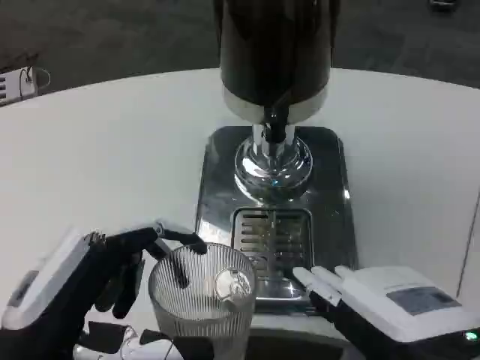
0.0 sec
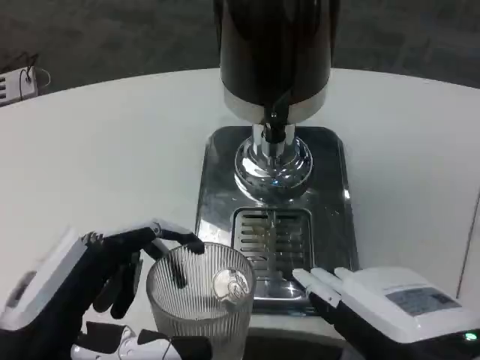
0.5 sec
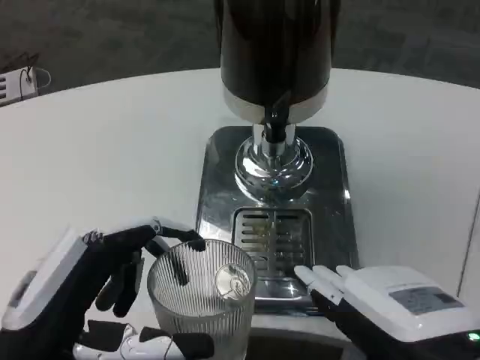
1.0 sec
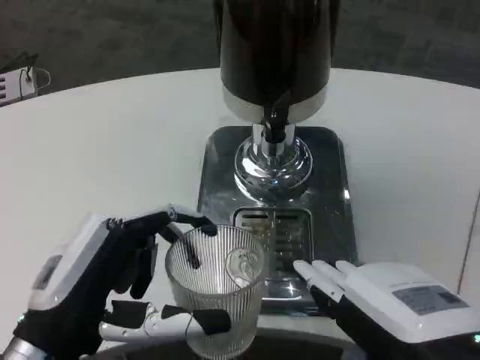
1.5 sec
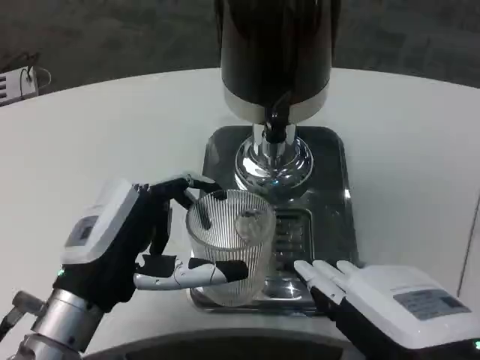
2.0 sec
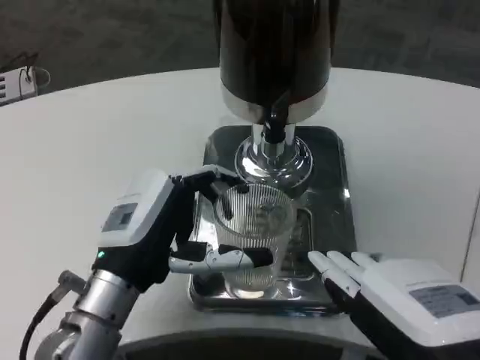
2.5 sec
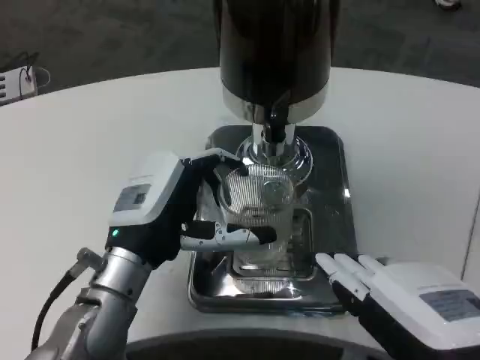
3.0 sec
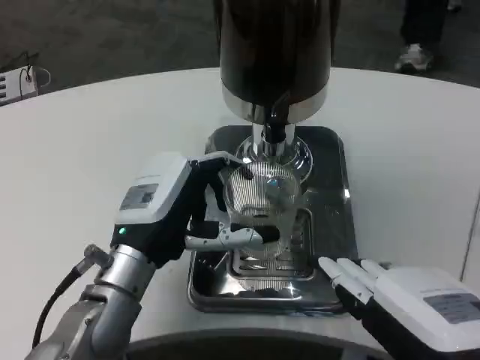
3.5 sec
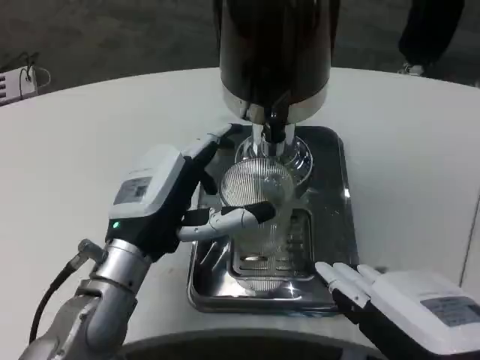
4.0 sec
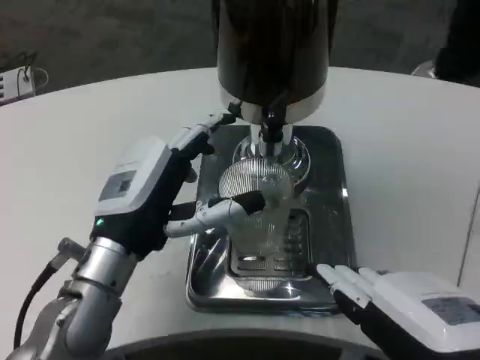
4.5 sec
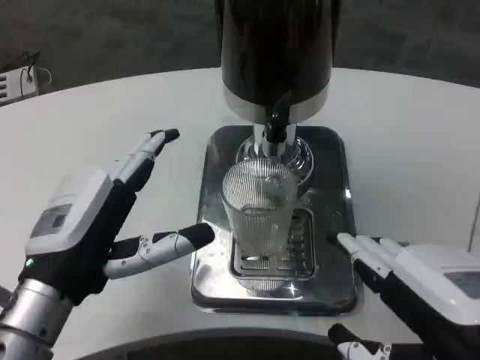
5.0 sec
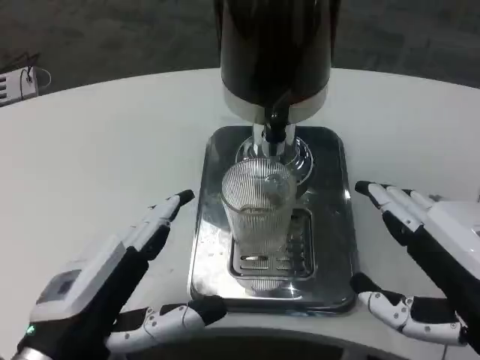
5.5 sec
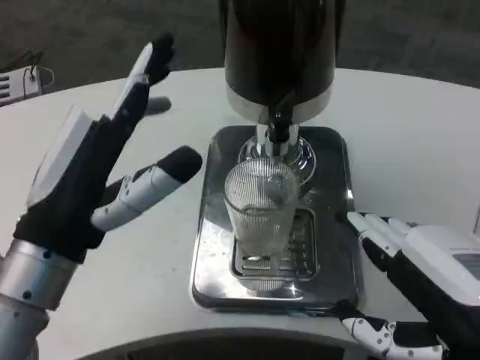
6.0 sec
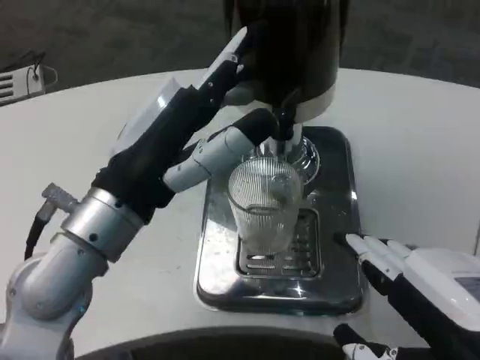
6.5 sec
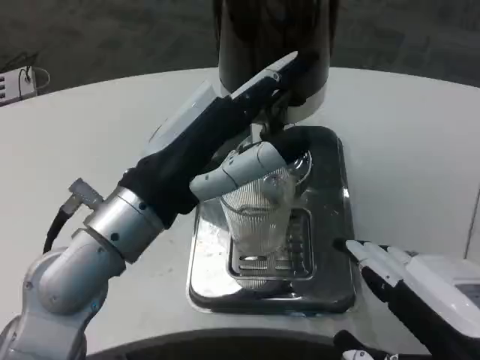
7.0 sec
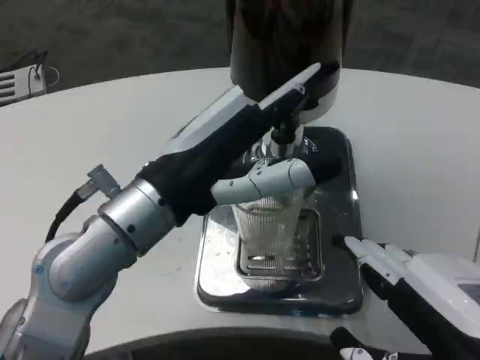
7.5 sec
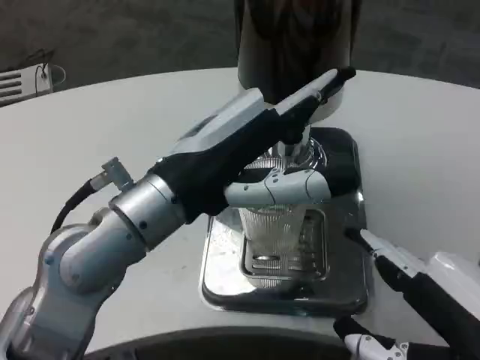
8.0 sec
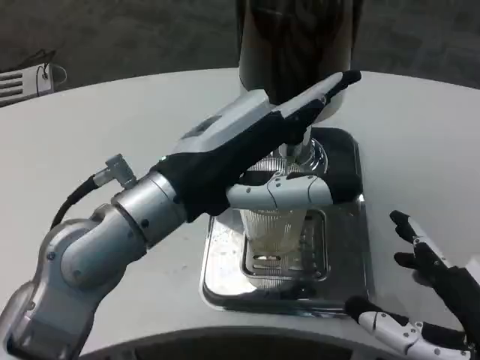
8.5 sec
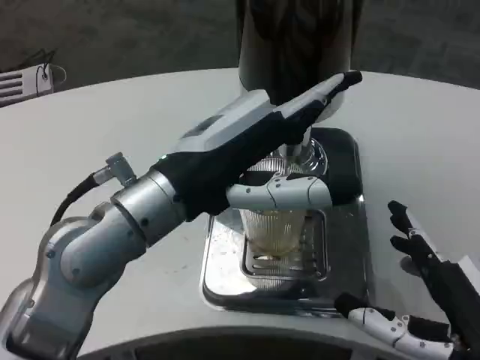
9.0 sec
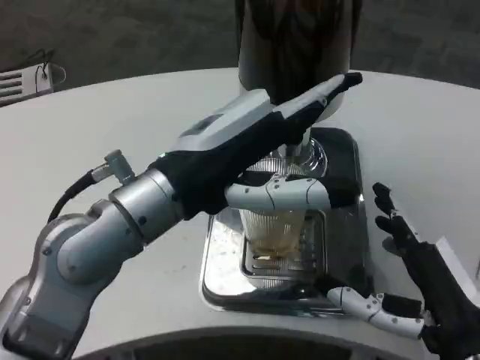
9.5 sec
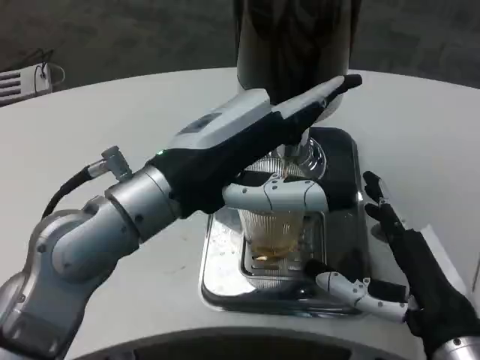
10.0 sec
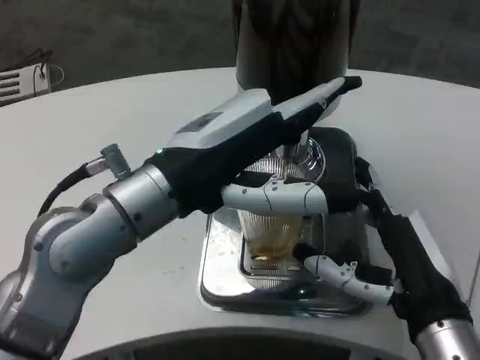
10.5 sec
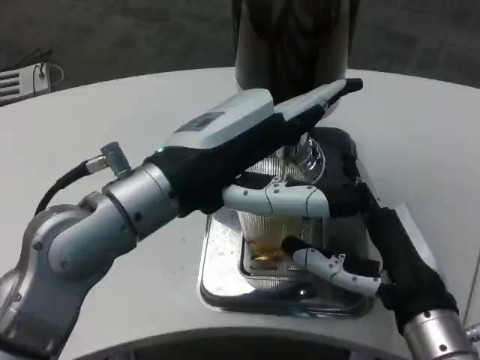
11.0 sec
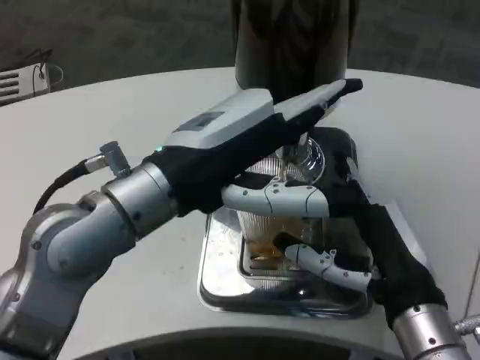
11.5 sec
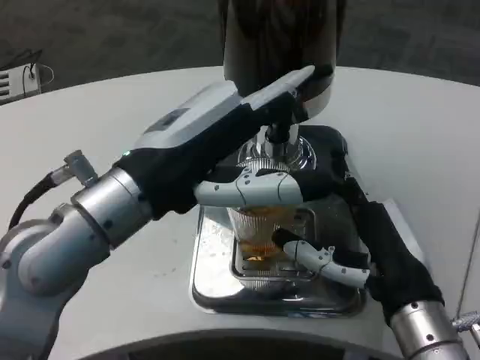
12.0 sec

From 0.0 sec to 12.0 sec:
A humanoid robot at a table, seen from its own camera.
Task of the whole recording: Grasp the cup under the faucet to collect the drink, then remove the cup.
From 0.0 sec to 2.0 sec: The left hand is displaced forward by roughly 5 cm.
From 2.0 sec to 4.0 sec: The left hand moves forward, approximately 5 cm.
From 4.0 sec to 6.0 sec: The left hand travels backward and upward by some 10 cm.
From 6.0 sec to 8.0 sec: The left hand travels to the right by about 5 cm.
From 8.0 sec to 10.0 sec: The right hand moves forward and downward, approximately 10 cm.

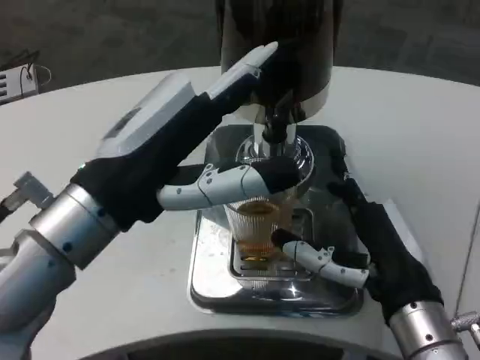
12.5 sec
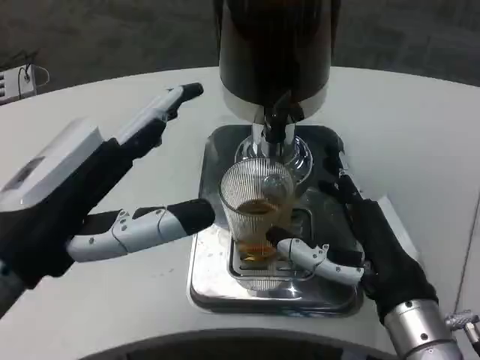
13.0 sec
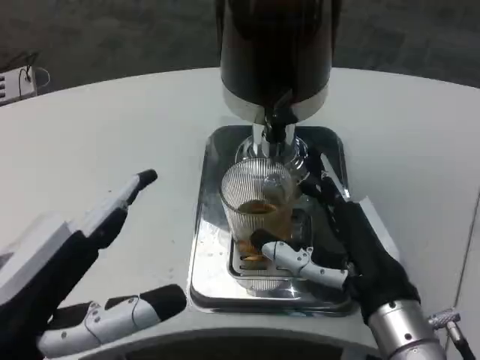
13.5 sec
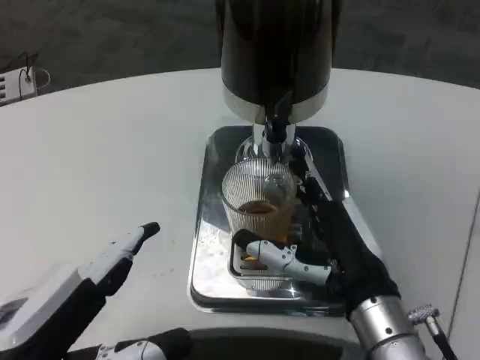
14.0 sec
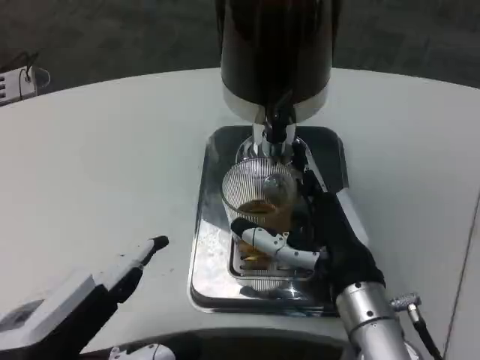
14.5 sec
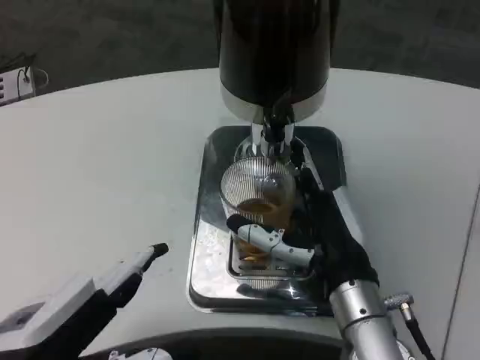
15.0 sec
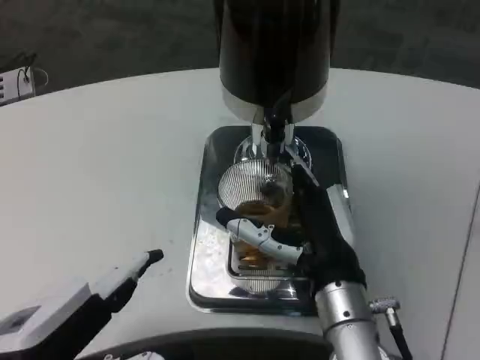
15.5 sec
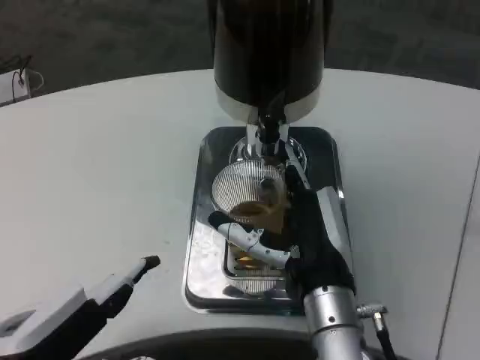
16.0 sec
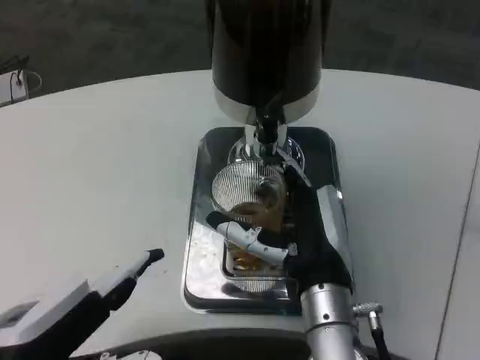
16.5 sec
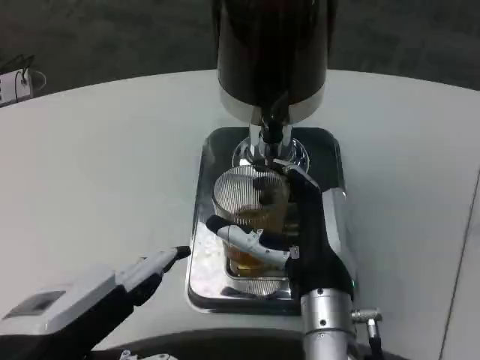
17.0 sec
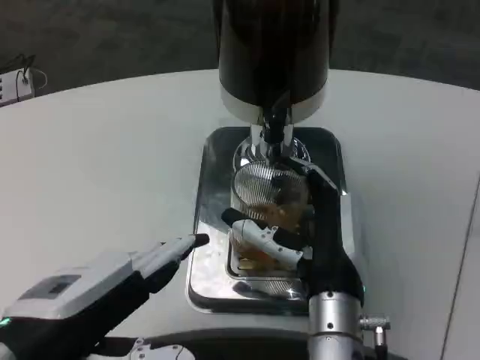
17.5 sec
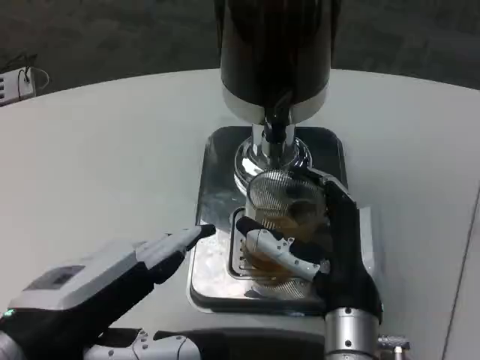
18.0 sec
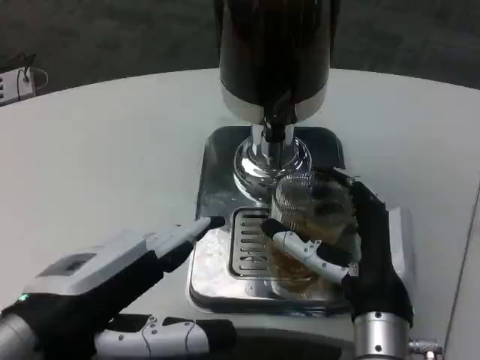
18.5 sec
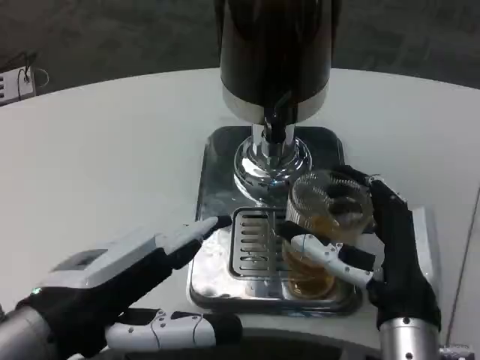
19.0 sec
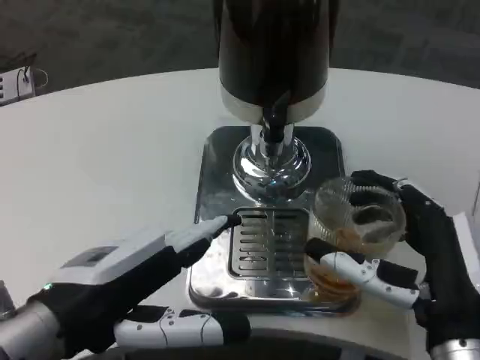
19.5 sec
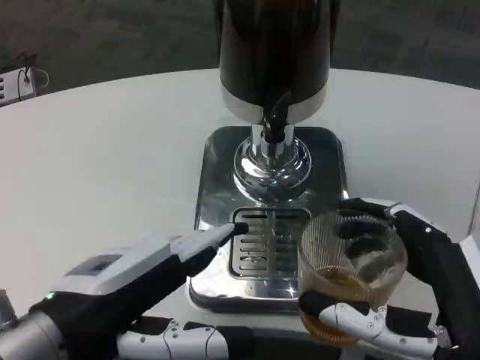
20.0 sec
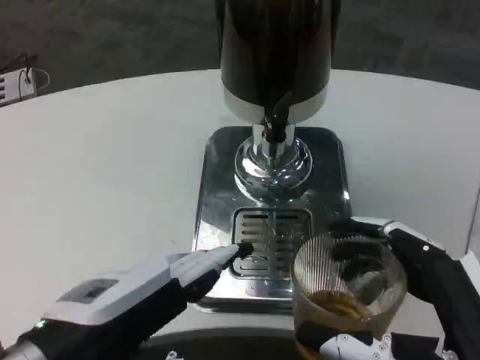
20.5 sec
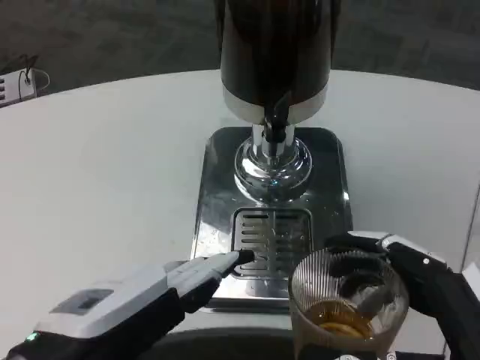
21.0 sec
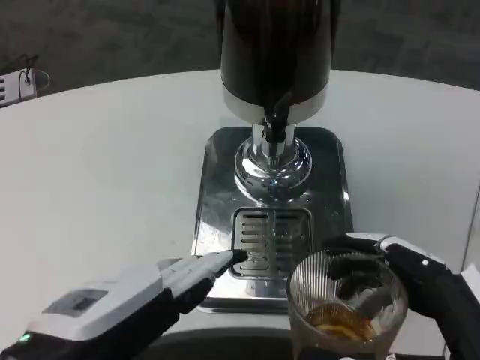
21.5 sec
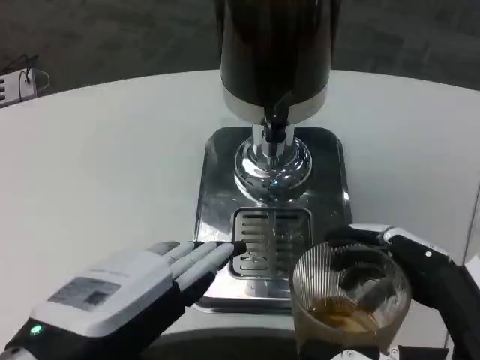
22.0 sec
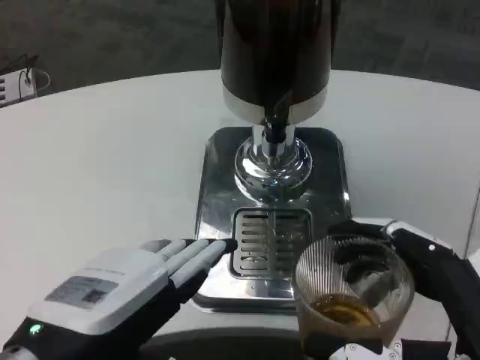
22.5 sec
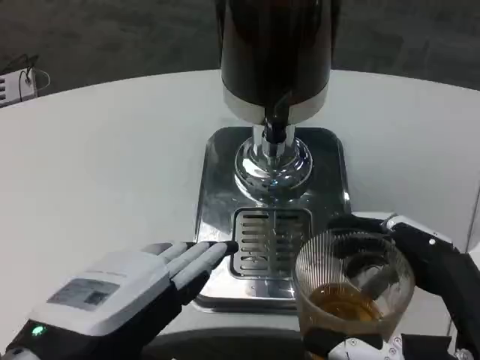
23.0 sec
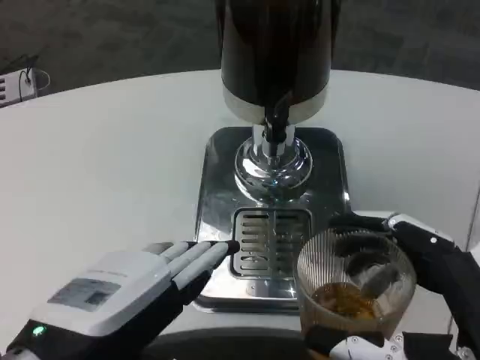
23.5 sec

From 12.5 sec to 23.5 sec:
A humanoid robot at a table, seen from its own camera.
Task of the whole recording: Grasp the cup under the faucet to collect the drink, then remove the cup.
From 12.5 sec to 14.5 sec: The left hand travels backward and downward by roughly 10 cm; the right hand changes place by approximately 5 cm.
From 14.5 sec to 16.0 sec: The hands move only a little.
From 18.0 sec to 20.0 sec: The right hand travels backward and to the right by approximately 15 cm.
From 21.5 sec to 23.5 sec: There are only small adjustments of the hands.

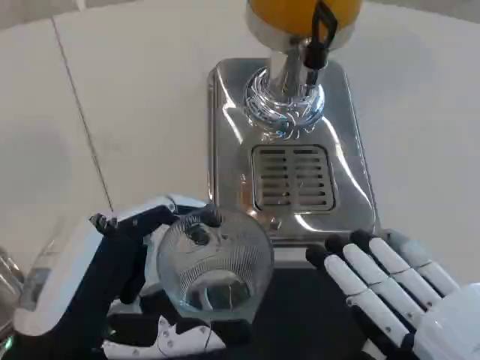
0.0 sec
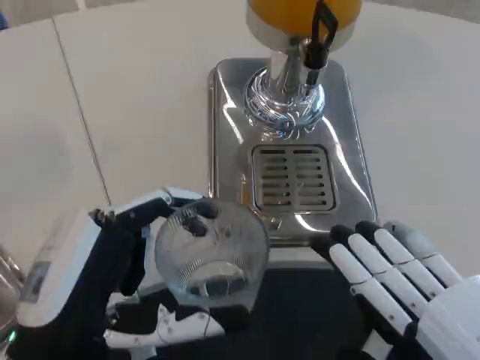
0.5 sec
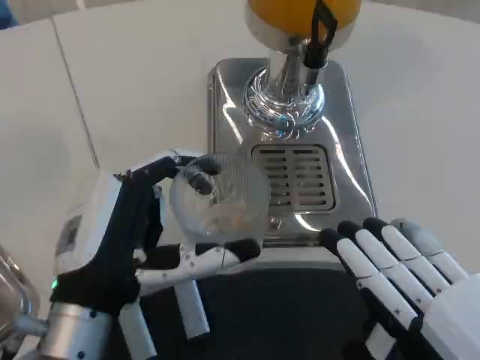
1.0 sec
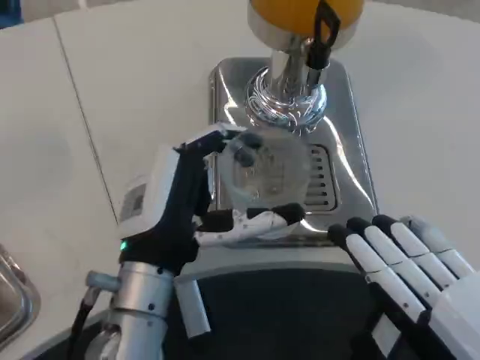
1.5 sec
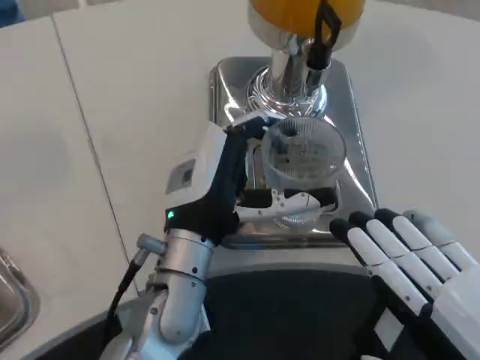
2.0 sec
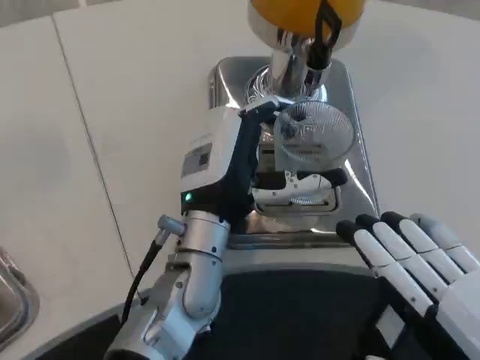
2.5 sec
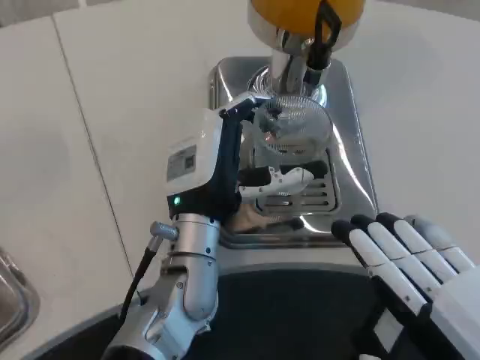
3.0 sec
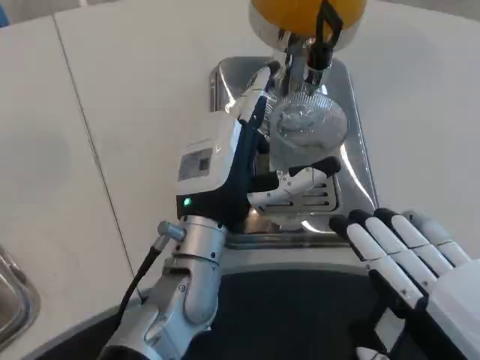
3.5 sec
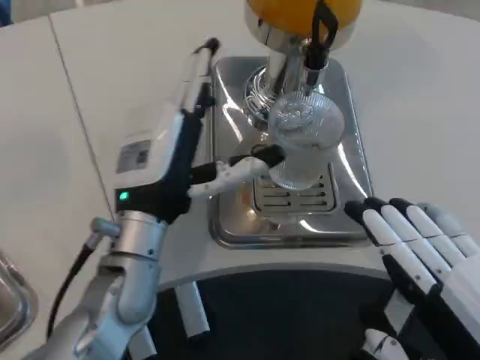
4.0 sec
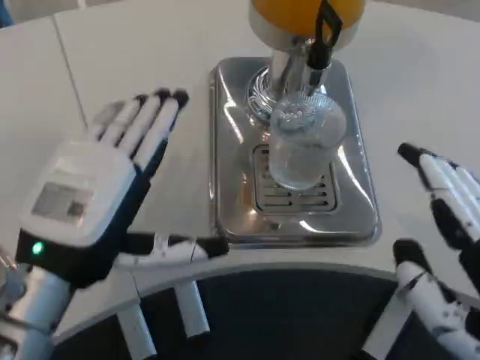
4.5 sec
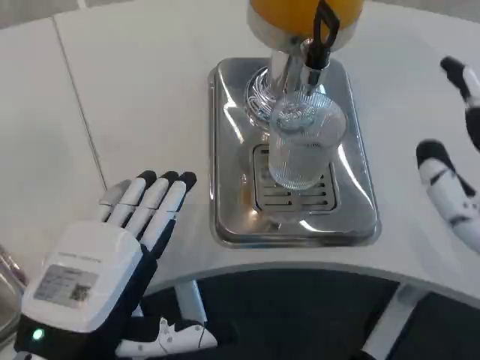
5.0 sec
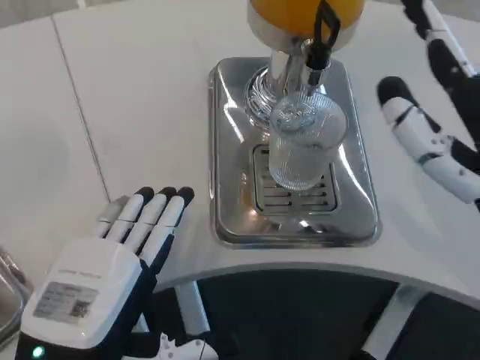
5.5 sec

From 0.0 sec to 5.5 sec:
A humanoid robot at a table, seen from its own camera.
Task of the whole recording: Grasp the cup under the faucet to collect the drink, then remove the cup.
From 0.0 sec to 2.0 sec: The left hand shifts some 20 cm forward and to the right.
From 2.0 sec to 3.5 sec: The hands move only a little.
From 3.5 sec to 5.5 sec: The left hand moves backward and to the left, roughly 20 cm; the right hand travels forward and upward by roughly 10 cm.
